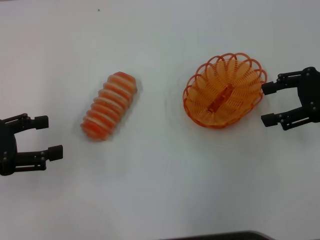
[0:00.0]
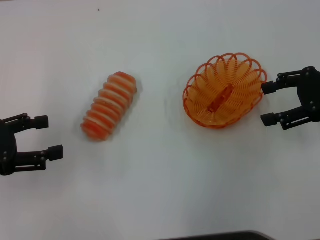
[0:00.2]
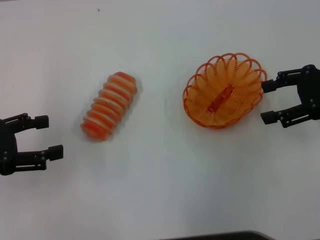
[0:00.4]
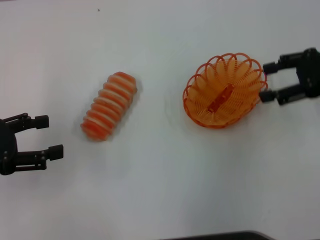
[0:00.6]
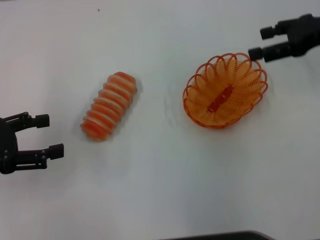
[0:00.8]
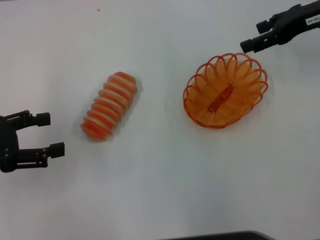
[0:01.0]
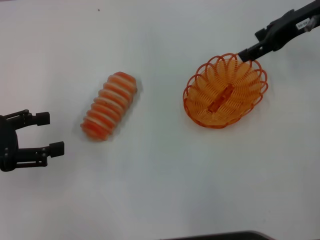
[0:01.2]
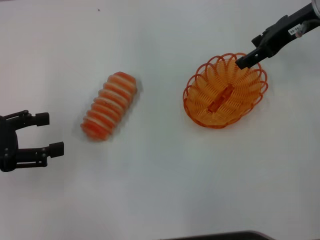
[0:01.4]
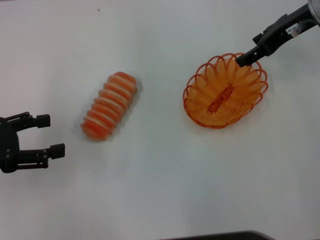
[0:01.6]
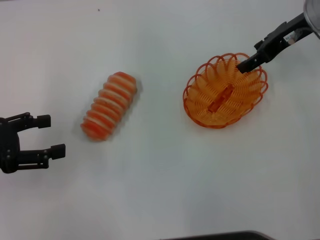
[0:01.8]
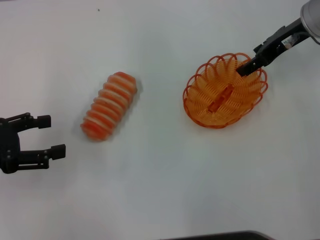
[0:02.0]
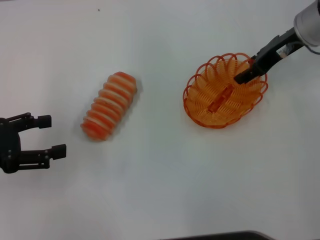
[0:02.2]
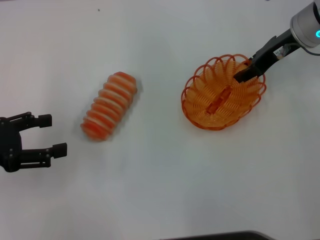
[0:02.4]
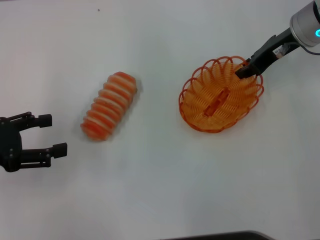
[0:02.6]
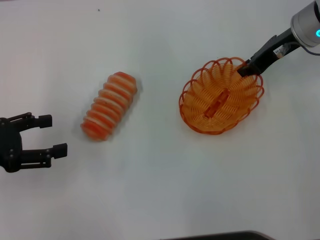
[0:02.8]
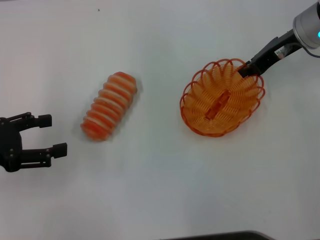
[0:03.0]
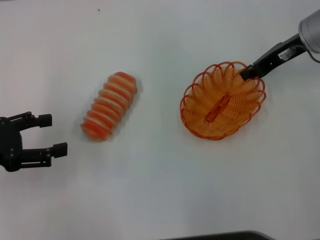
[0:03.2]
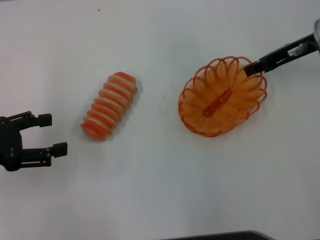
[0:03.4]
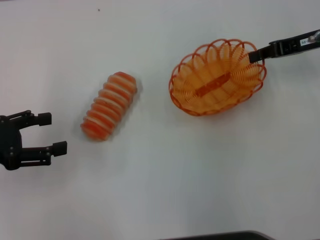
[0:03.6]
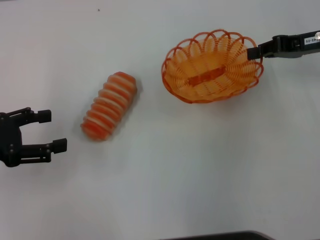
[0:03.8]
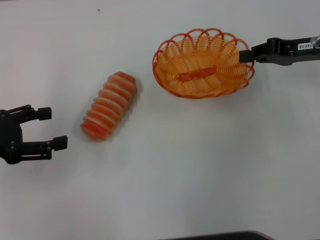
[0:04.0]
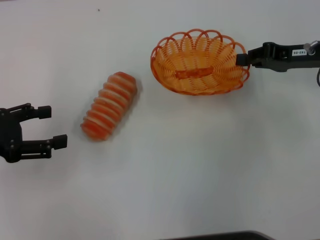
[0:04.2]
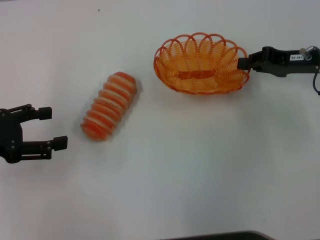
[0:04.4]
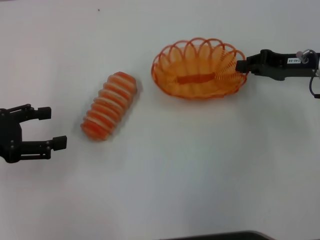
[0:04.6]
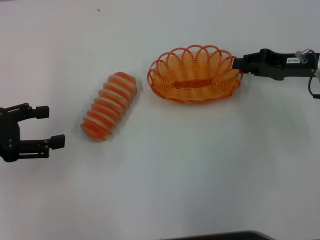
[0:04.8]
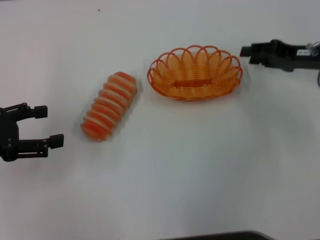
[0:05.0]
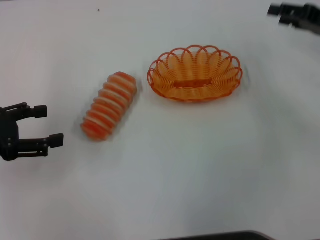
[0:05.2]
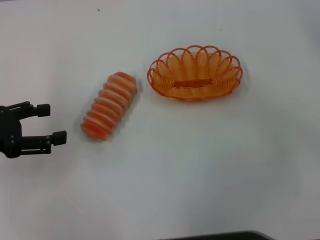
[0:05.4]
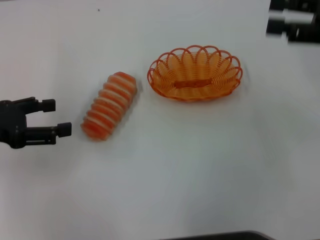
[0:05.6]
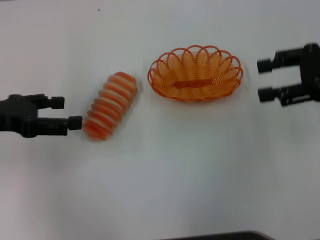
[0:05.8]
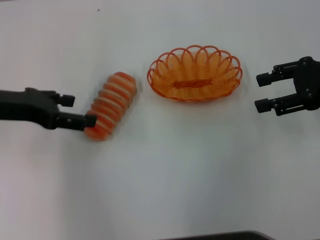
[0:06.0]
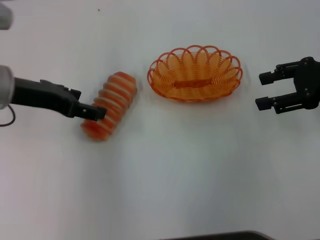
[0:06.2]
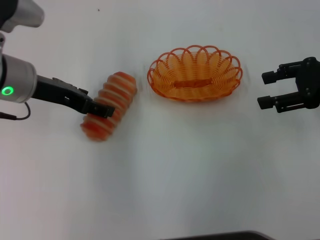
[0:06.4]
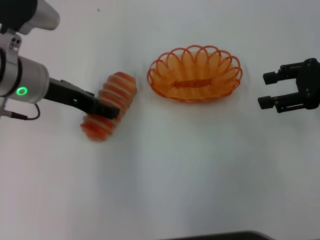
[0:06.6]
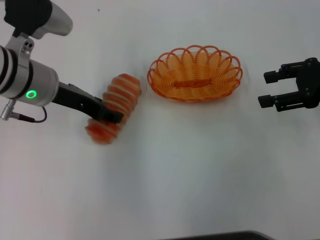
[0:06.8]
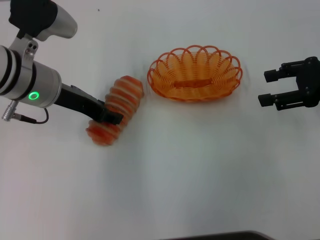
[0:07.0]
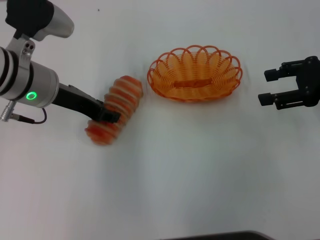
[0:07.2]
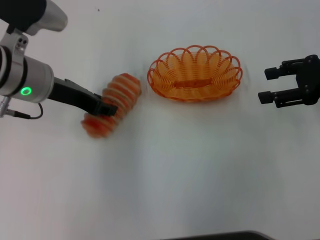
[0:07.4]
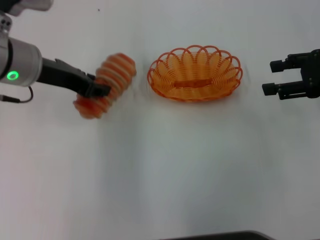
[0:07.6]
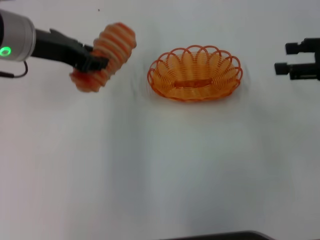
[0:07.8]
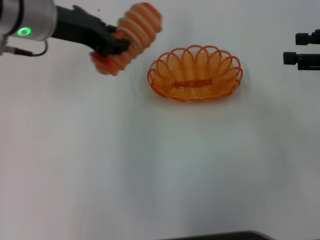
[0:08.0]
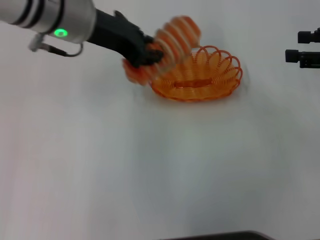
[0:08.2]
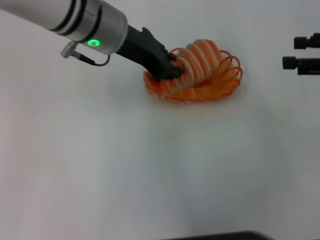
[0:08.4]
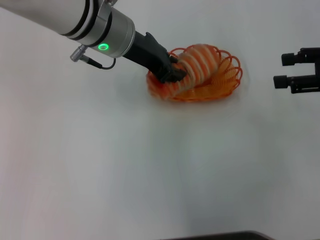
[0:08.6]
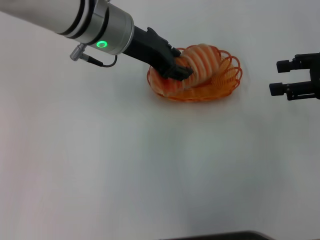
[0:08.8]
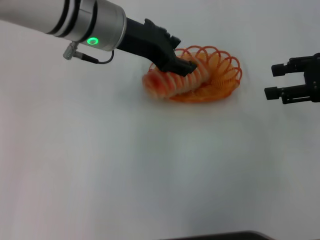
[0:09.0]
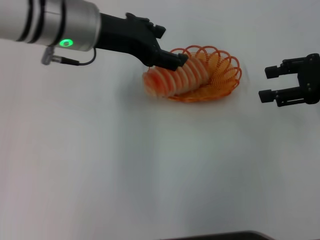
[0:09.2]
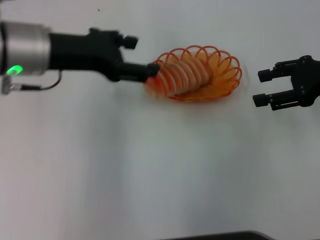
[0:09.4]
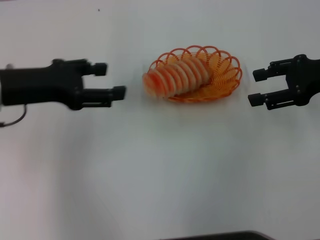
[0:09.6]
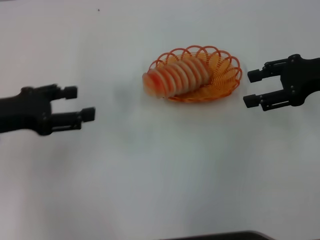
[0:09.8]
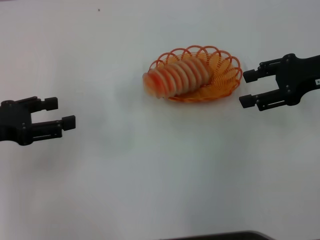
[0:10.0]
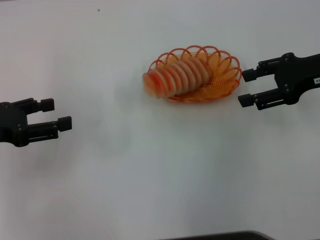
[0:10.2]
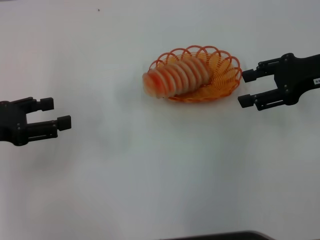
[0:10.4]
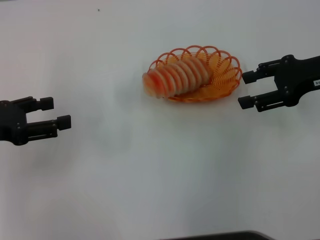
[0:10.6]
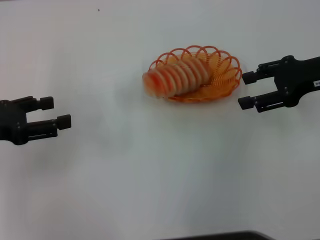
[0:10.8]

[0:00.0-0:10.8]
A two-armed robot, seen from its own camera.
Step, 0:00.0 to 0:03.4: Pick up the basket with the right gripper.
Step, 0:03.6 to 0:04.8: Place the basket in the center of view with the right gripper.
Step, 0:05.2 to 0:07.4: Pick up the long bread with the left gripper.
Step, 0:07.6 to 0:09.2: Place the long bread into the basket with the left gripper.
0:00.0 to 0:01.6: The right gripper moves forward and to the left, about 15 cm.
0:01.6 to 0:03.0: The right gripper closes its fingers.
0:03.0 to 0:04.6: The right gripper goes about 10 cm downward, backward and to the right.
0:04.6 to 0:06.2: The left gripper shifts about 10 cm to the right and forward, while the right gripper goes some 5 cm upward, and opens.
0:06.2 to 0:07.8: The left gripper moves about 5 cm, and closes up.
0:07.8 to 0:09.2: The left gripper travels to the right by some 5 cm, and opens.
0:09.2 to 0:10.8: The left gripper goes roughly 20 cm to the left and backward.
